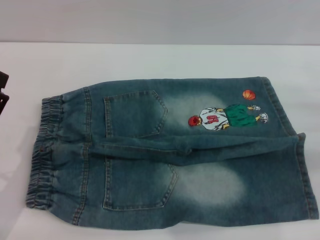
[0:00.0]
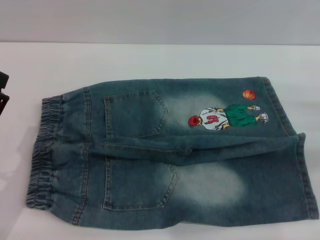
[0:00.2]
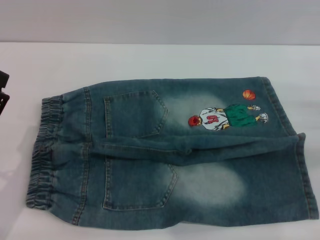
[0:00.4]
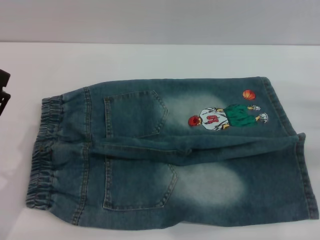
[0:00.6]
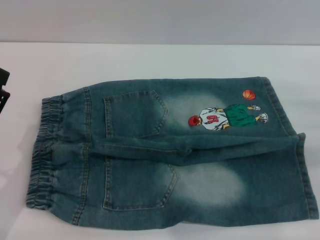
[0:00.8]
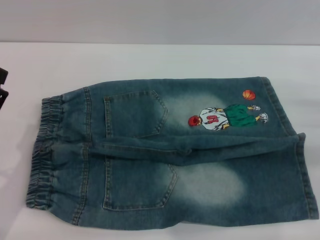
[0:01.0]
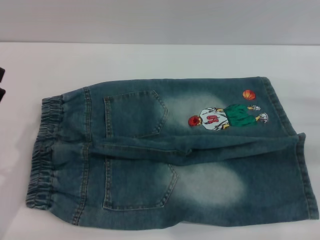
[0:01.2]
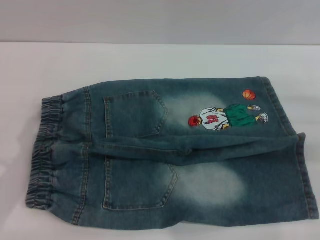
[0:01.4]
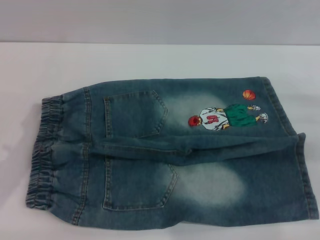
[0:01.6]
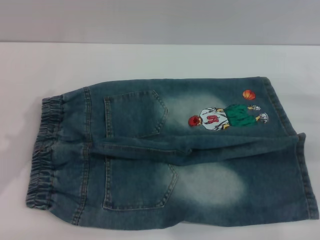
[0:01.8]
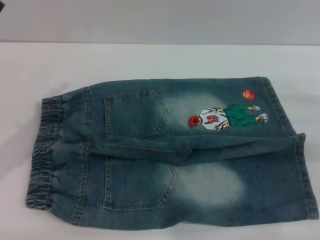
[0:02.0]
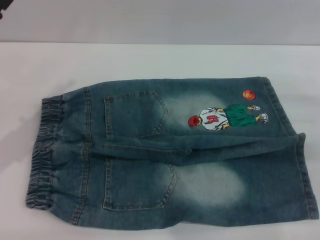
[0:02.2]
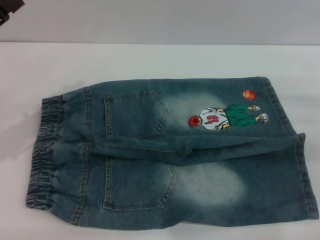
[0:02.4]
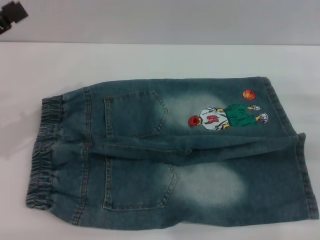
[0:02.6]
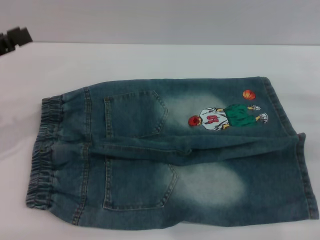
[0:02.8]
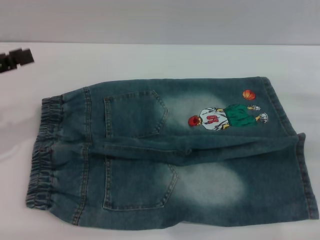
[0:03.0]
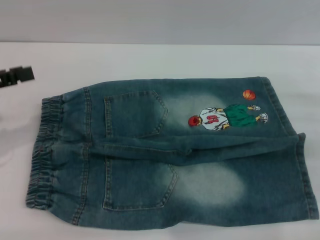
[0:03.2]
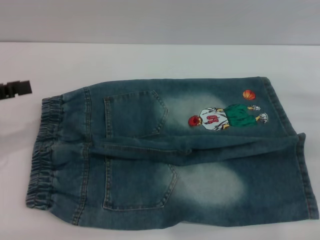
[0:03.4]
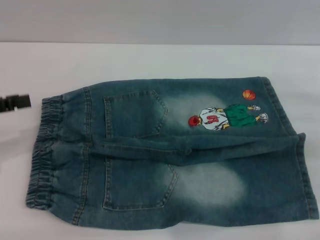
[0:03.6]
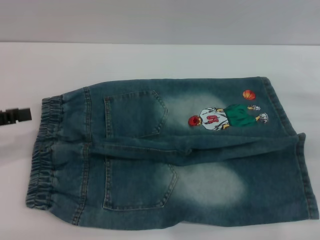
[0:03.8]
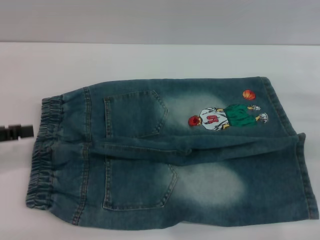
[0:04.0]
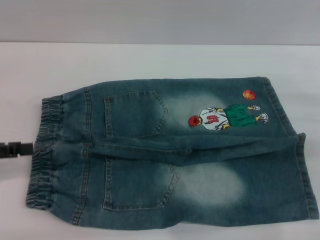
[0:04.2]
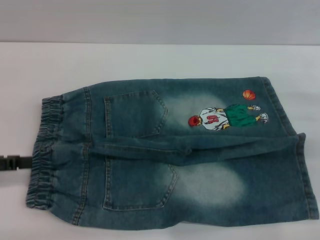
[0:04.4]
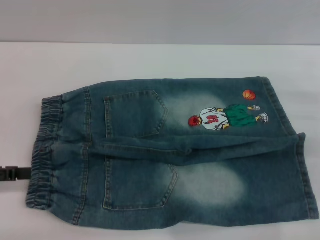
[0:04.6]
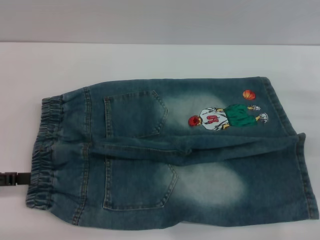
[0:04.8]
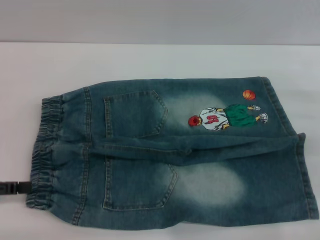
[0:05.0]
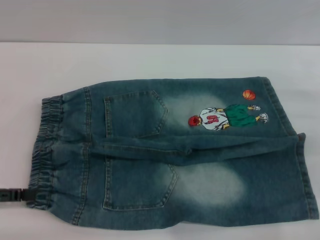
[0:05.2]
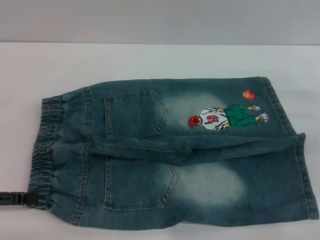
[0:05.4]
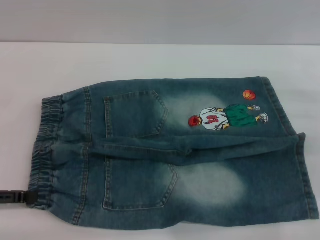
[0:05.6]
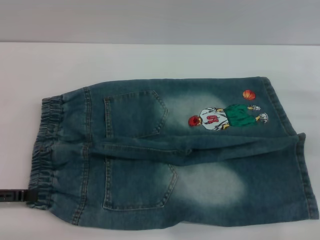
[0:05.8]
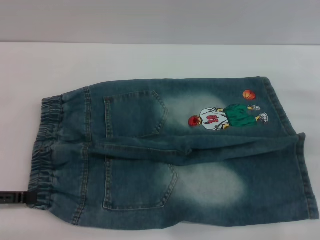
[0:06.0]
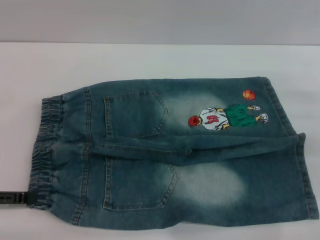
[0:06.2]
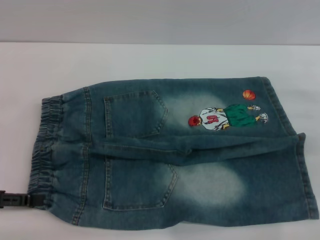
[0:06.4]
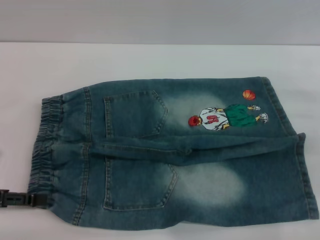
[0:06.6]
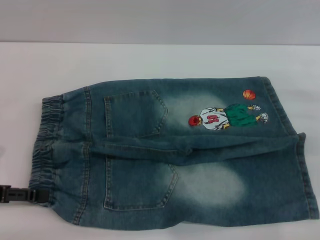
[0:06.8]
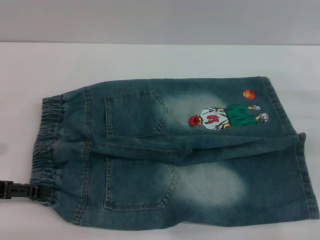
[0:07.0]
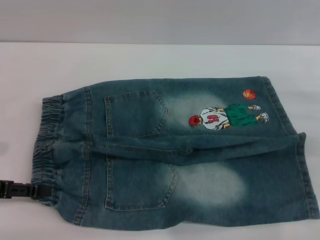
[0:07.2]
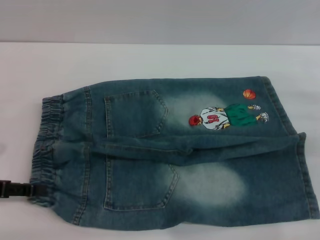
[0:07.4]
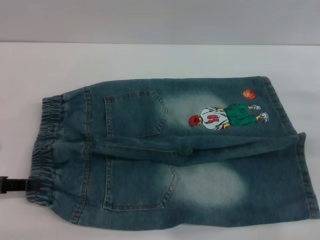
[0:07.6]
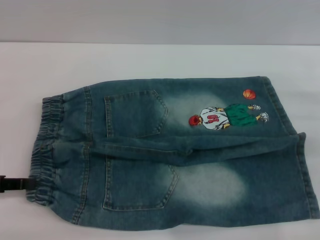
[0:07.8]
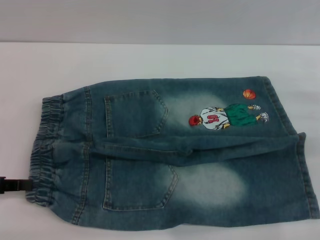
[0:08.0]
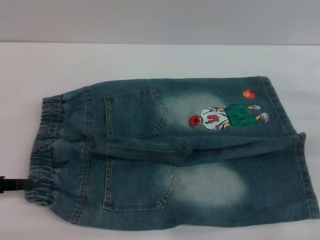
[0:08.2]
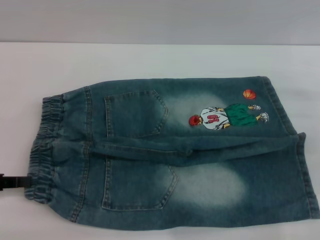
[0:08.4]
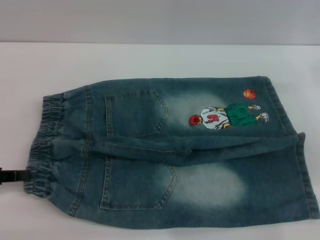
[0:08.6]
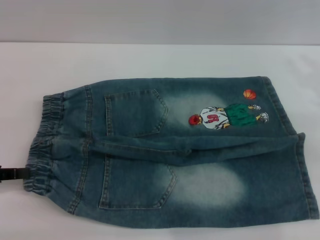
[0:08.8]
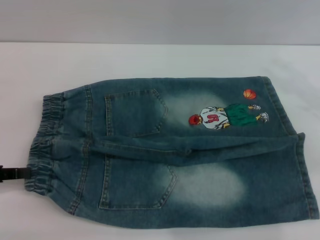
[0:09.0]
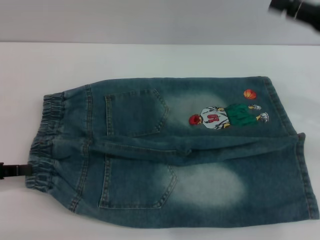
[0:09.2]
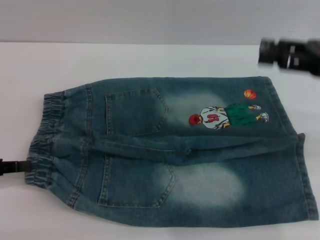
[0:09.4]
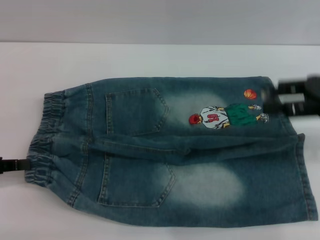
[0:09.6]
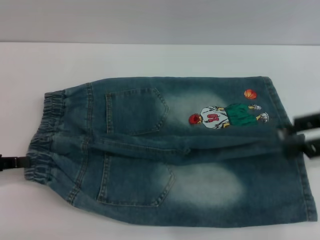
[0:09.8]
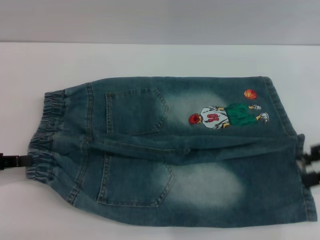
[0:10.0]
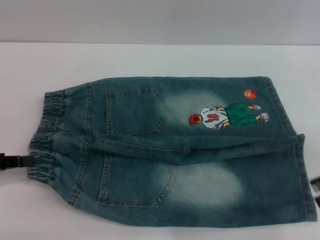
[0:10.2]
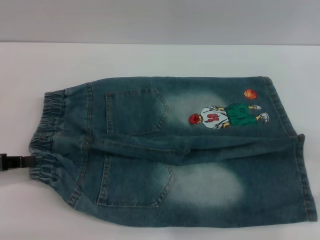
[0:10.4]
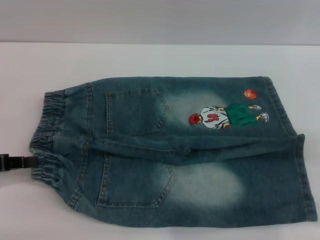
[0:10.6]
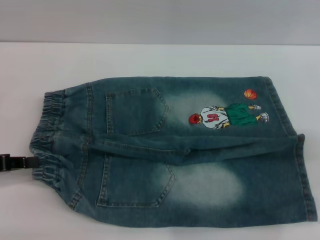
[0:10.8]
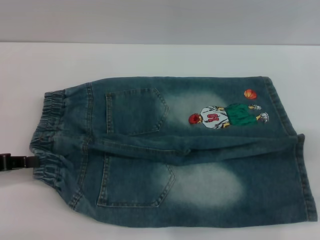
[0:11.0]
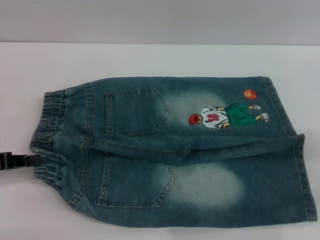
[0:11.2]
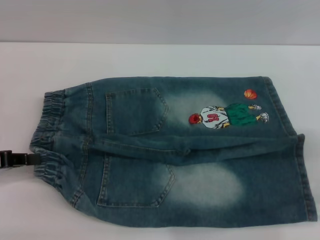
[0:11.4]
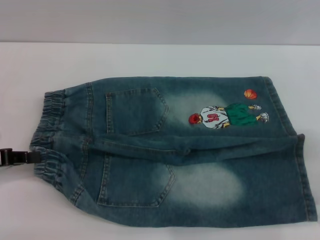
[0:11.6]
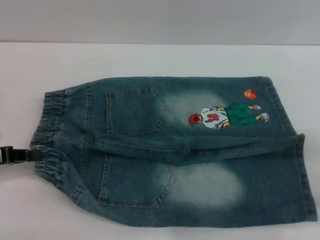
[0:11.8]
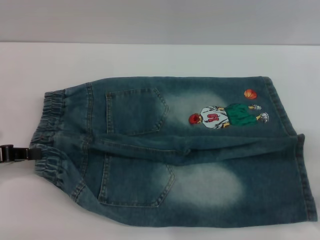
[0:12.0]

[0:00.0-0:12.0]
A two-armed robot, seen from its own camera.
0:01.6 to 0:03.0: The left gripper shifts roughly 15 cm upward, forward and to the left.
0:03.0 to 0:04.4: The left gripper moves about 5 cm.
0:04.4 to 0:07.6: There are only small adjustments of the grippers.
0:07.6 to 0:09.0: The right gripper goes some 10 cm upward, while the left gripper closes.
0:09.0 to 0:10.4: The right gripper shifts approximately 5 cm backward.
0:10.4 to 0:12.0: The grippers move only a little.

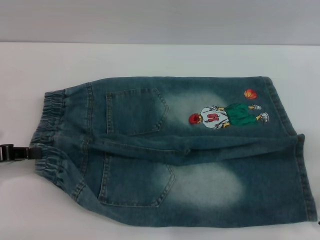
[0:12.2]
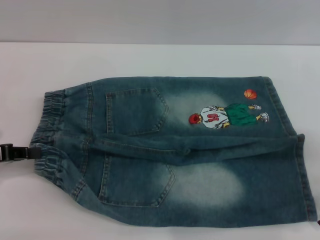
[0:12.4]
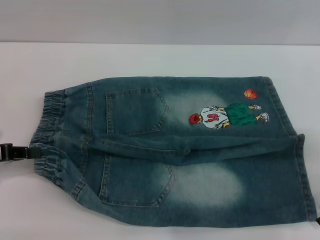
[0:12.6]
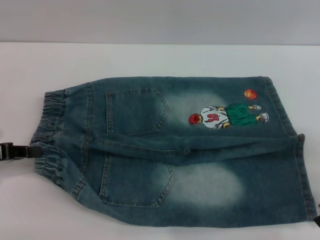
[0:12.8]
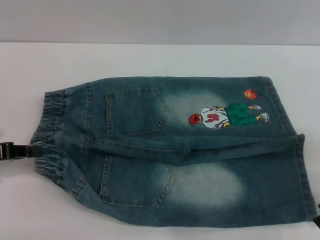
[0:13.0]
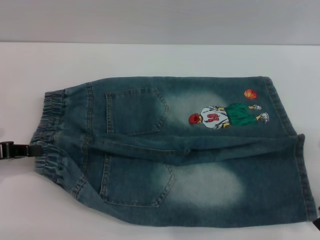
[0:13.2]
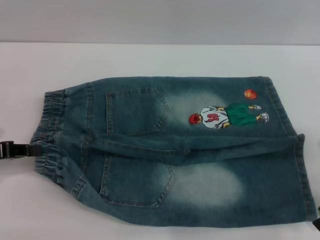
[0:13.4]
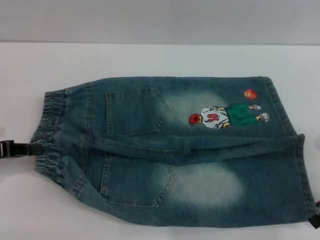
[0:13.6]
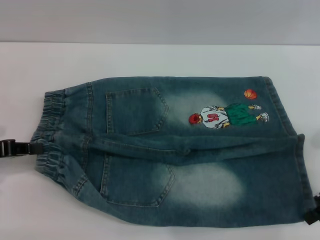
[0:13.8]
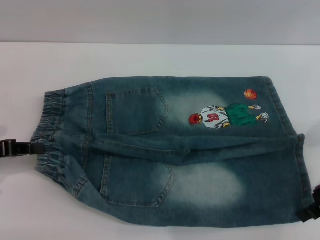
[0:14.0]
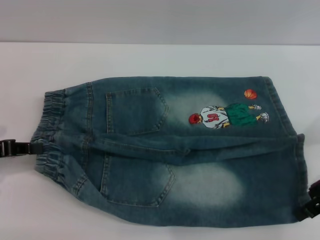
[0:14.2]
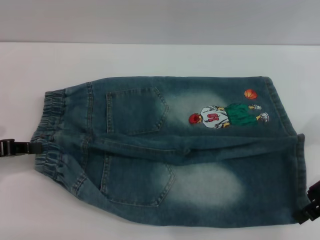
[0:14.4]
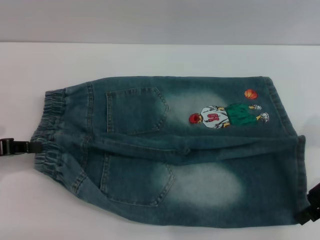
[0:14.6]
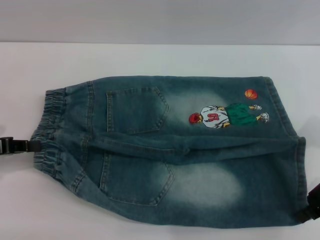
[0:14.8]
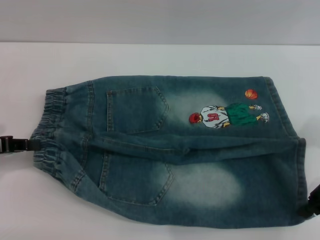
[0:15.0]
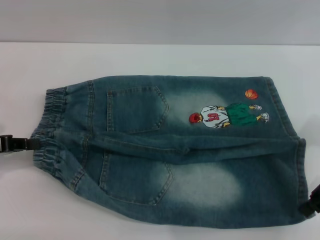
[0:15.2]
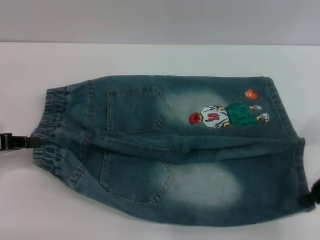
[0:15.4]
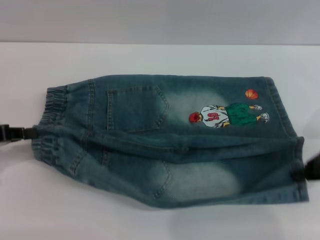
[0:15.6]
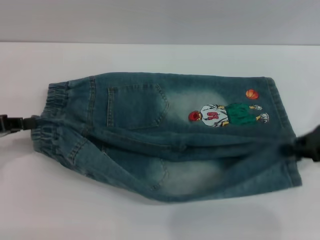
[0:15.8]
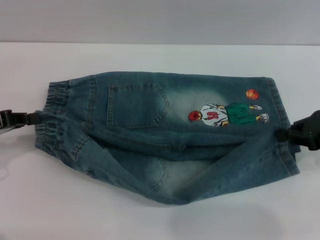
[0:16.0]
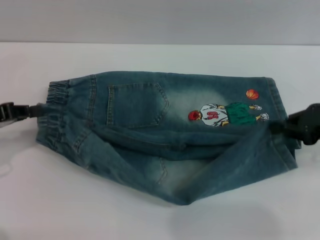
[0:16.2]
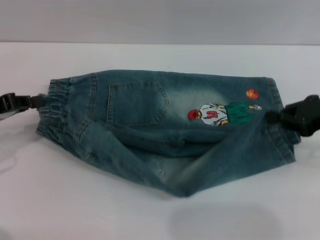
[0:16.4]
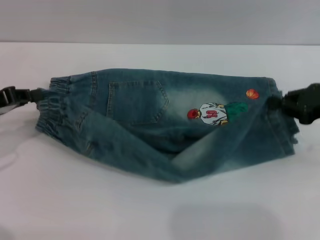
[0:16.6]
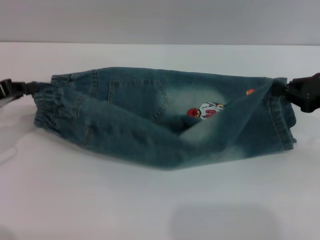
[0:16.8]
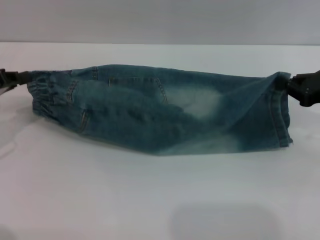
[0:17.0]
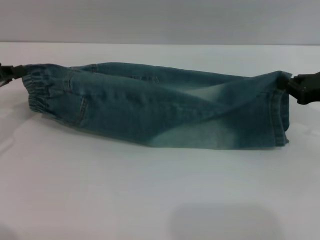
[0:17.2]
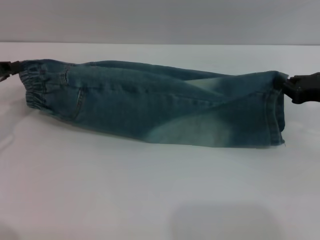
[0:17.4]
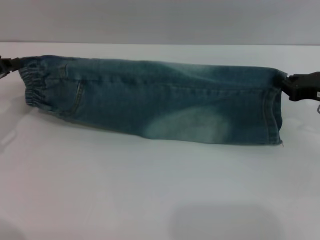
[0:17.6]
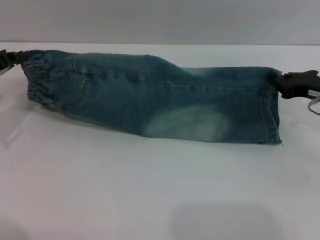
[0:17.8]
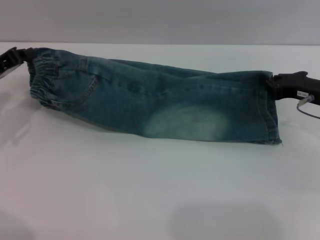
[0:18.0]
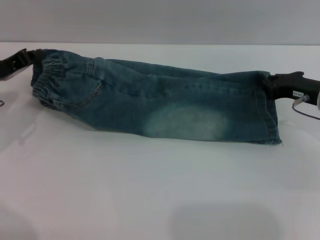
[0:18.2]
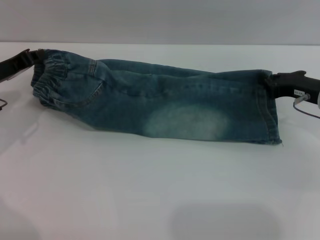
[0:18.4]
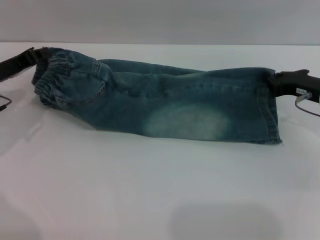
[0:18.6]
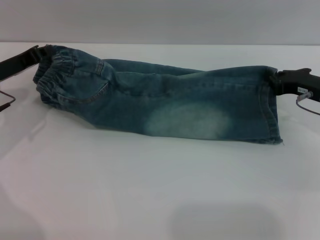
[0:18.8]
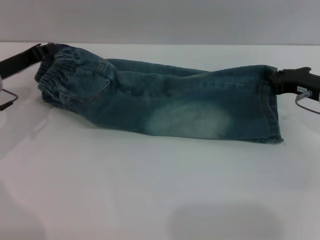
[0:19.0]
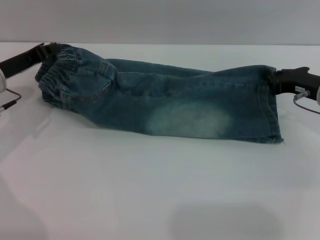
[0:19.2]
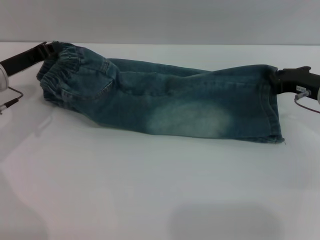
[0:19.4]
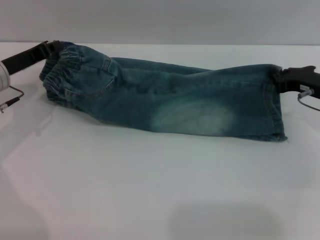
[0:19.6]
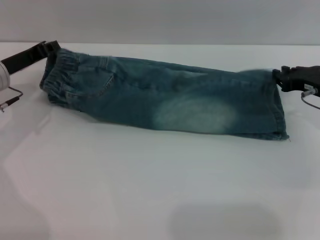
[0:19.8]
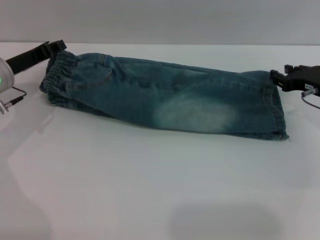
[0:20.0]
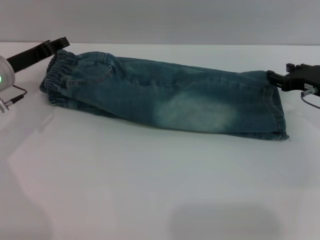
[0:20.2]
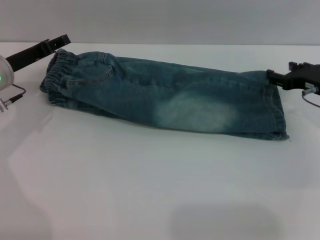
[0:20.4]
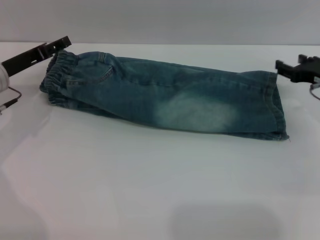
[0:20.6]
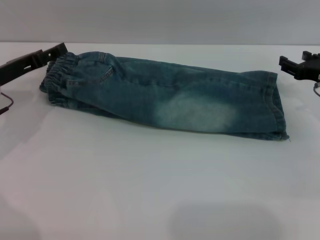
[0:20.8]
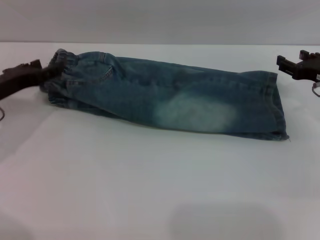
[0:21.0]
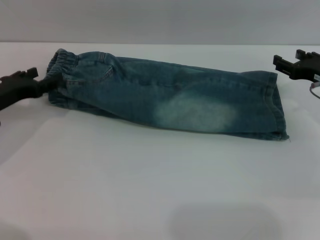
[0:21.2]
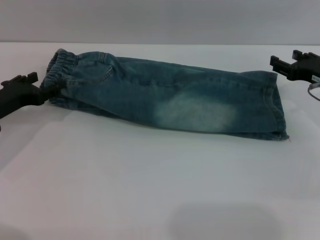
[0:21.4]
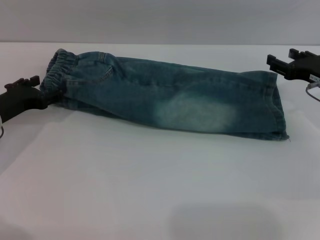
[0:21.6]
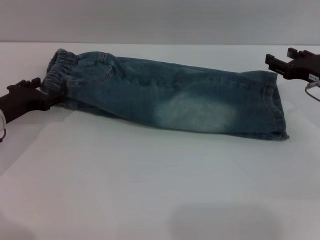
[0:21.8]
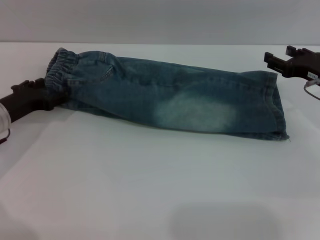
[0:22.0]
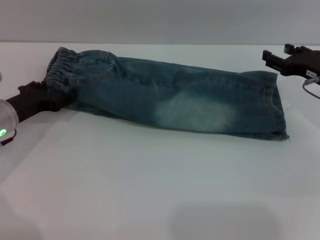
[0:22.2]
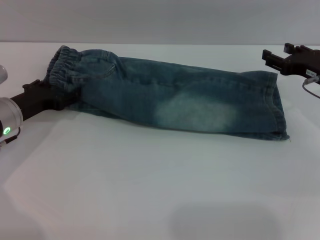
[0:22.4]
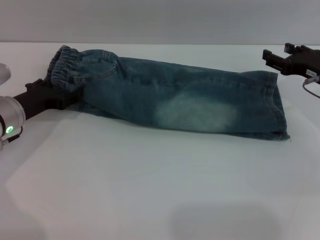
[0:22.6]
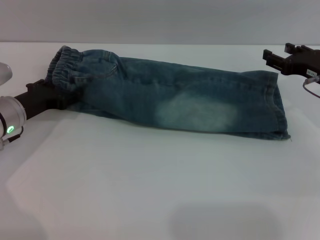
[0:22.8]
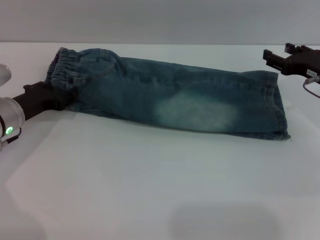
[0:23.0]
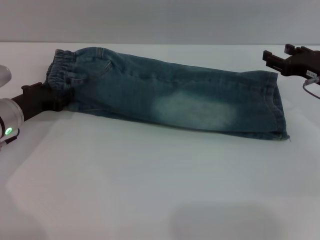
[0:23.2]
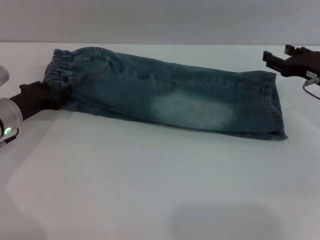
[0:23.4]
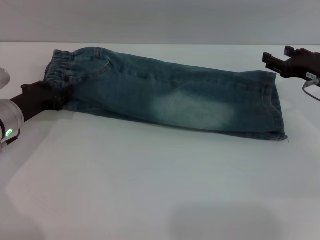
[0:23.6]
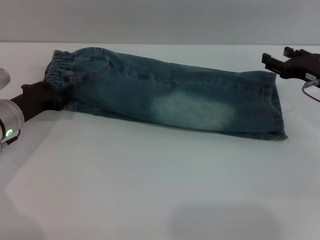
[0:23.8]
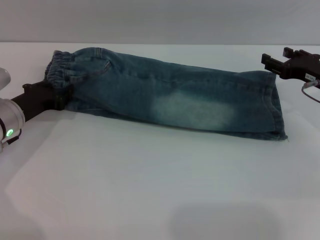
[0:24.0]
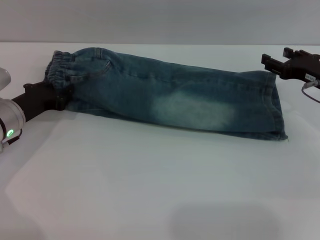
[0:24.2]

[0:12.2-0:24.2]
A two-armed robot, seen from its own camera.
Step, 0:12.2 to 0:20.4: Fold the bottom of the pants upward with both grippers.
0:12.2 to 0:13.8: The grippers move only a little.
0:13.8 to 0:15.2: The right gripper closes.
0:16.6 to 0:18.2: The right gripper moves downward, approximately 5 cm. The left gripper heads forward, covering about 5 cm.
0:18.2 to 0:19.8: The grippers stay close to where they were, moving slightly.
0:19.8 to 0:21.2: The left gripper moves some 5 cm, and opens its fingers, while the right gripper opens.
0:21.2 to 0:22.6: The grippers make only small movements.
0:22.6 to 0:24.2: The left gripper closes its fingers.
